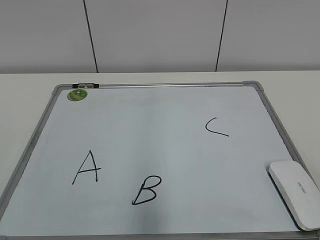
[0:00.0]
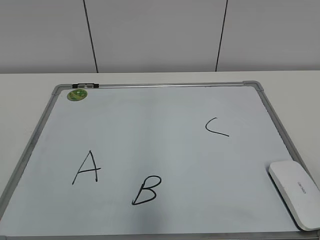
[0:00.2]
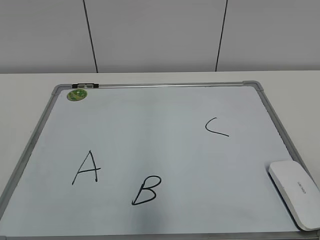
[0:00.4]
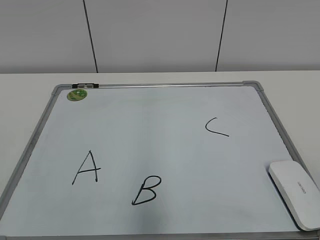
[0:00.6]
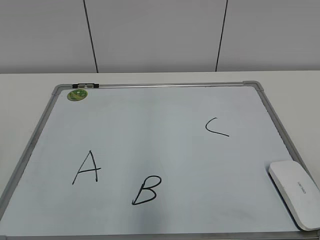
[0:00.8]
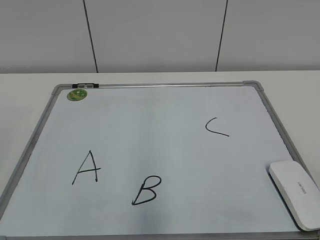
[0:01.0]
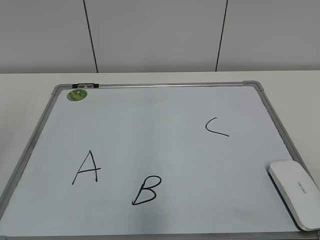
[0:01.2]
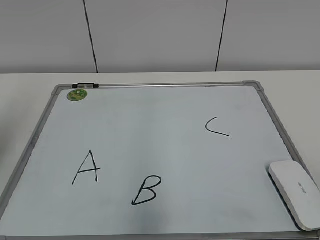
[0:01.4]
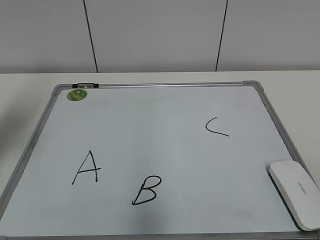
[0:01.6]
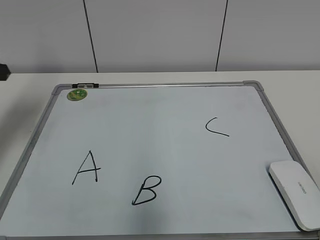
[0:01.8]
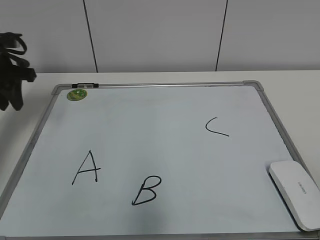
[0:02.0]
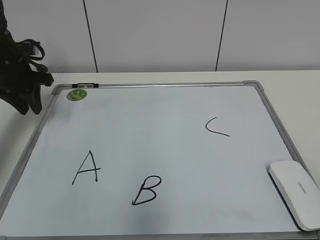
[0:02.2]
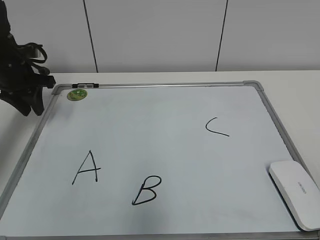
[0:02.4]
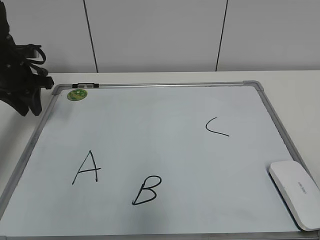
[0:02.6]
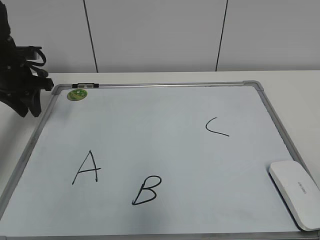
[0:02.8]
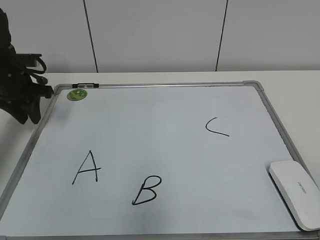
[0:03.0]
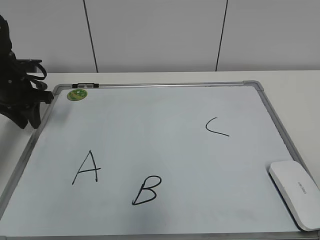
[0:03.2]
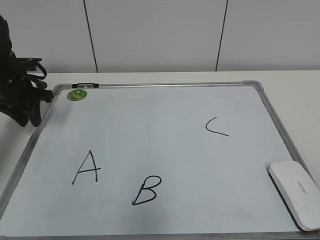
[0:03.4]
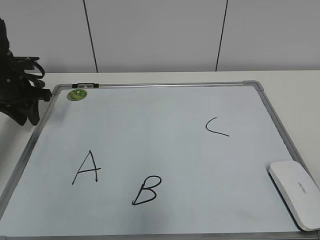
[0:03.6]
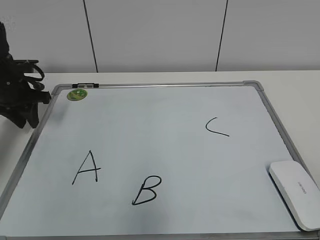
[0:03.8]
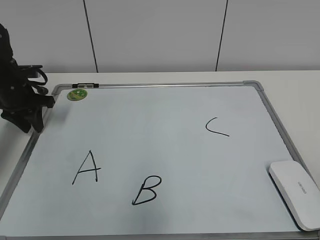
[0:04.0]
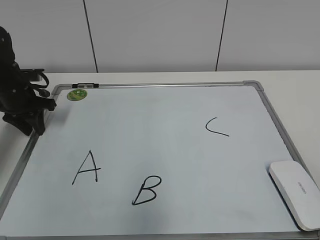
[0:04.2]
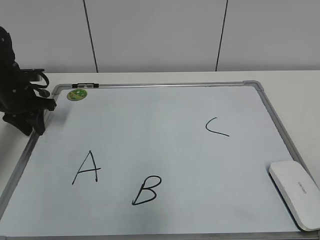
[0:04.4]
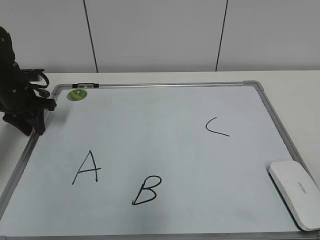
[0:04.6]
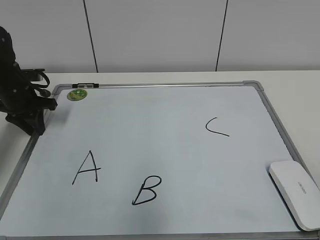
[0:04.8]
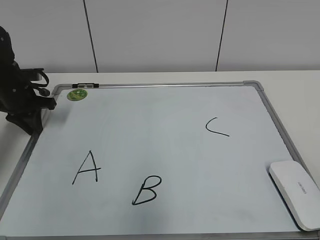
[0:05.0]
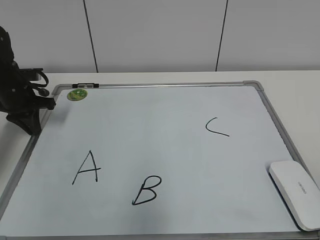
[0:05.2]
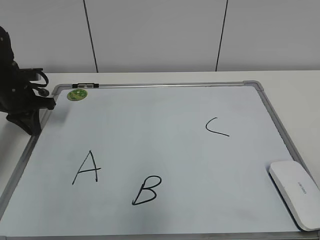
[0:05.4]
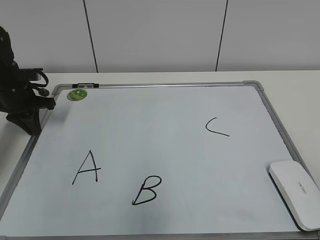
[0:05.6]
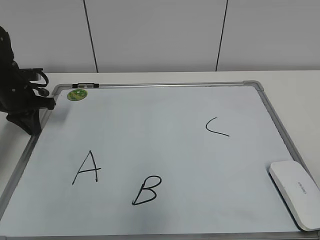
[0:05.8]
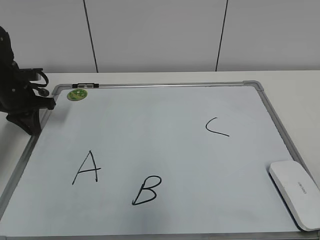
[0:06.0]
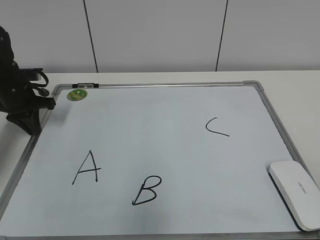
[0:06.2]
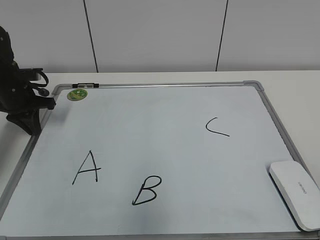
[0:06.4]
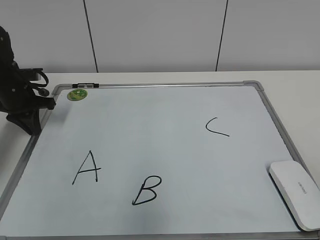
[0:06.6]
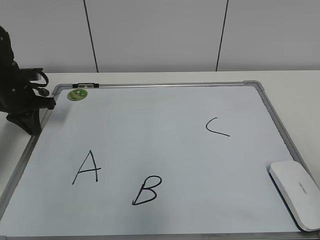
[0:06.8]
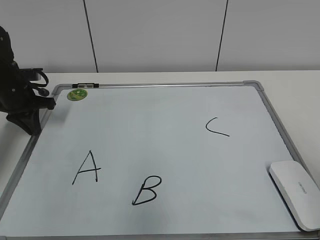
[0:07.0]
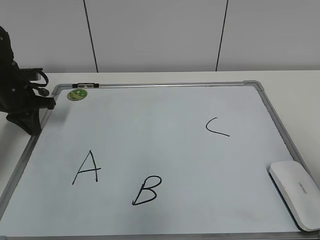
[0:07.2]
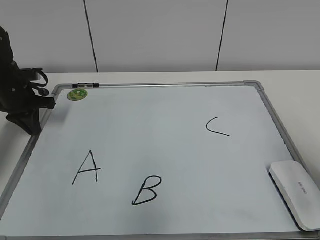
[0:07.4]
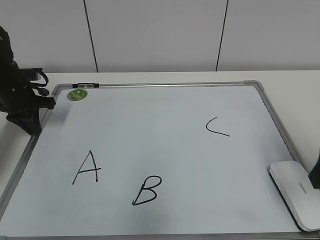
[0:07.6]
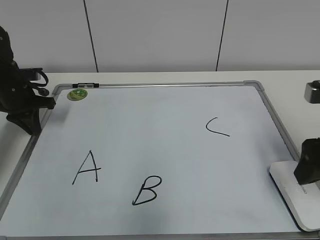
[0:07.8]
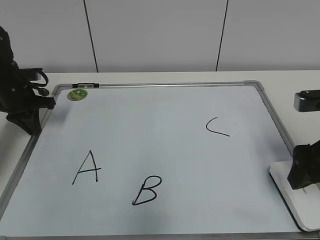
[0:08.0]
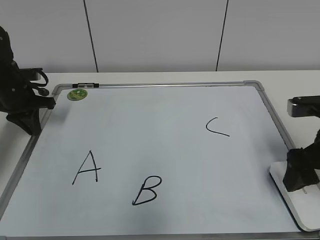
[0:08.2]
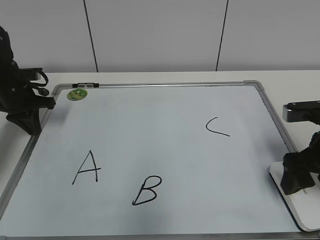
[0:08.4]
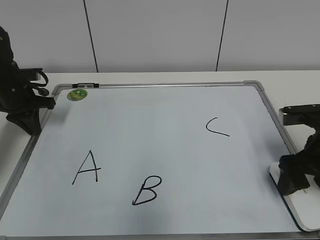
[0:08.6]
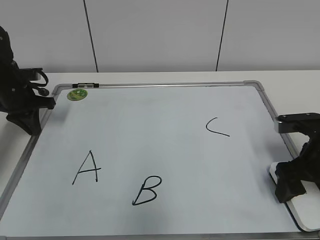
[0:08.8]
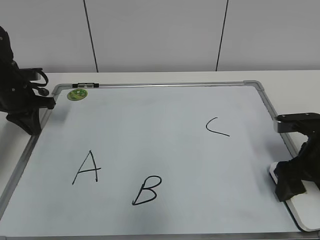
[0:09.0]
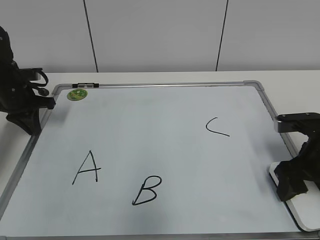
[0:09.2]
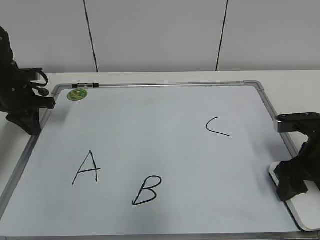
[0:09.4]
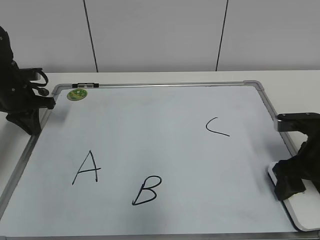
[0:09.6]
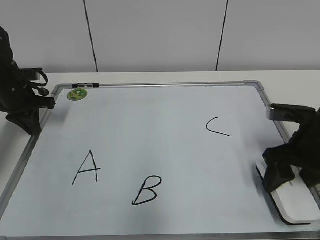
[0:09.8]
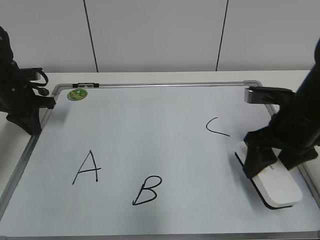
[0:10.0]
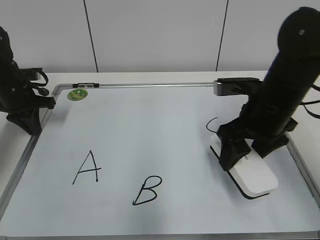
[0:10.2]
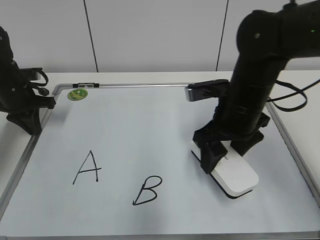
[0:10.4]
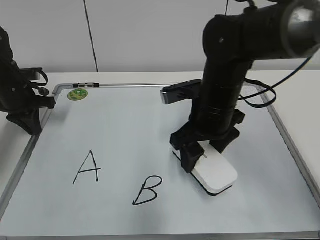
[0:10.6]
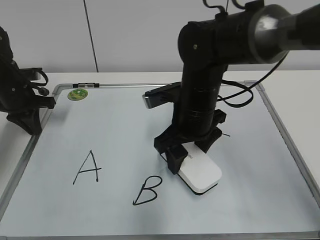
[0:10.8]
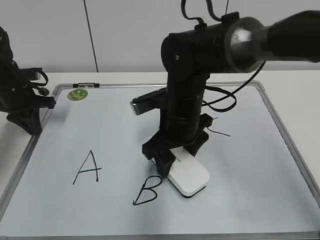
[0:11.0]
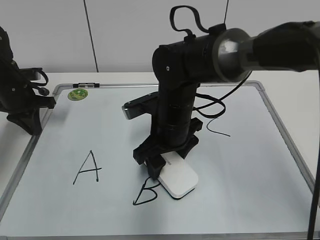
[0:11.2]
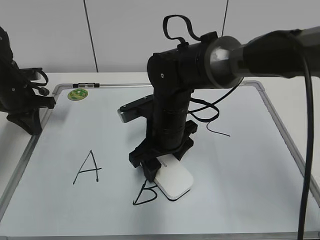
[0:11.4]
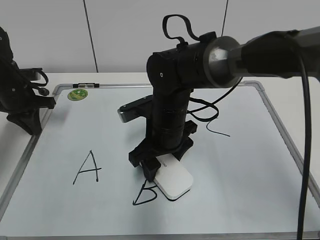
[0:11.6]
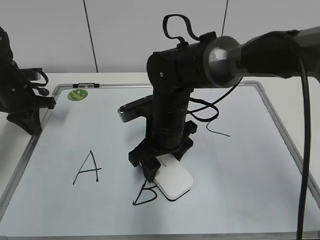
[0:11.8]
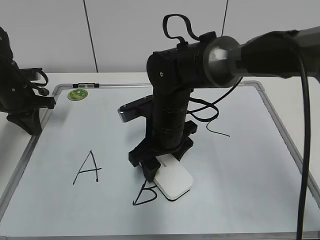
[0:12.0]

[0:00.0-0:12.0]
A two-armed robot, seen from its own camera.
Task of the whole recording: pick up the eraser on the blackboard and erase the letter "B".
Step, 0:00.0 to 0:05.2: Hold the drawing board steady with your left hand.
Step, 0:05.4 to 0:09.4: Grab the eraser with your right hand.
0:01.6 to 0:03.0: The left gripper shifts approximately 25 cm forward and downward.
0:03.0 to 0:04.4: The grippers move only a little.
0:04.4 to 0:06.0: The left gripper closes.
0:06.0 to 0:07.6: The right gripper heads forward, covering approximately 20 cm, and opens its fingers.
0:07.6 to 0:09.0: The right gripper shifts about 15 cm downward and forward.
0:09.0 to 0:10.4: The right gripper travels to the left and upward by roughly 15 cm, and closes up.
0:10.4 to 0:12.0: The right gripper goes about 15 cm to the left and downward.

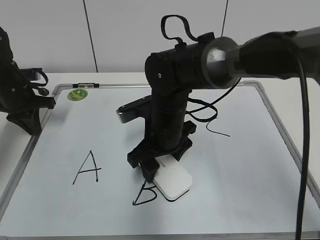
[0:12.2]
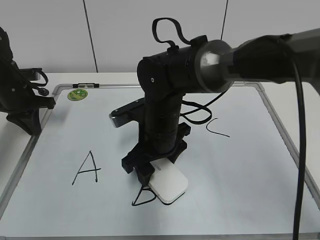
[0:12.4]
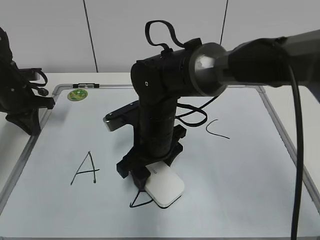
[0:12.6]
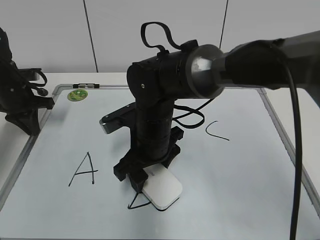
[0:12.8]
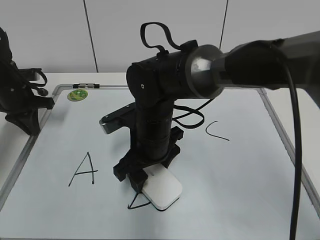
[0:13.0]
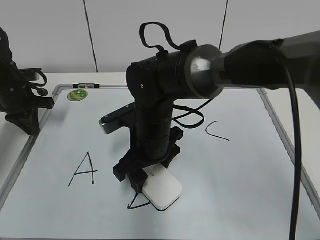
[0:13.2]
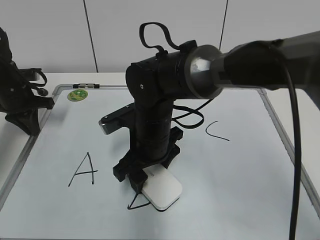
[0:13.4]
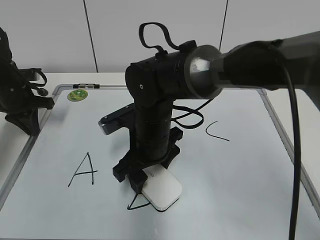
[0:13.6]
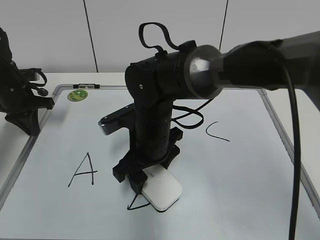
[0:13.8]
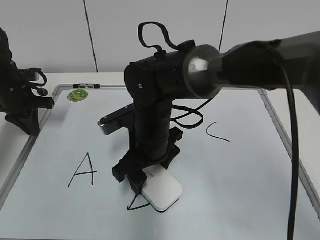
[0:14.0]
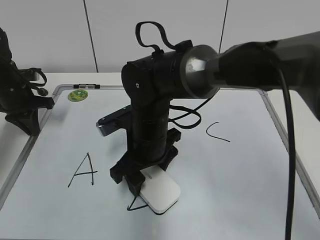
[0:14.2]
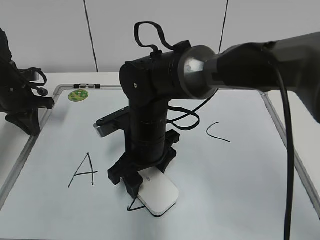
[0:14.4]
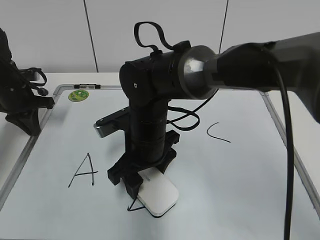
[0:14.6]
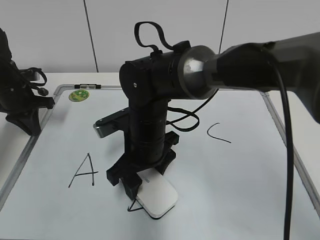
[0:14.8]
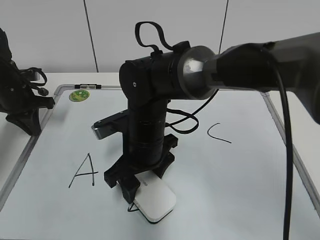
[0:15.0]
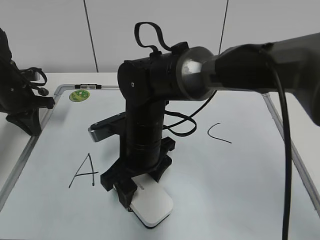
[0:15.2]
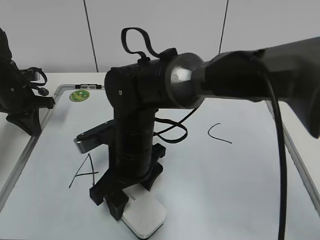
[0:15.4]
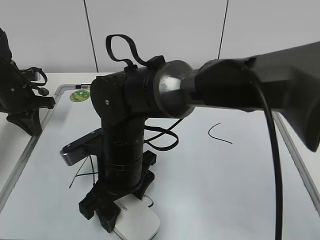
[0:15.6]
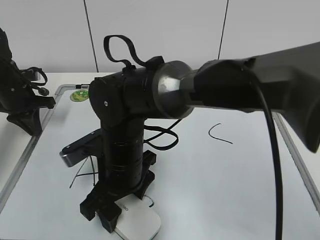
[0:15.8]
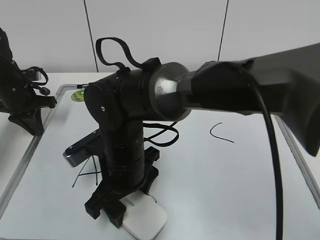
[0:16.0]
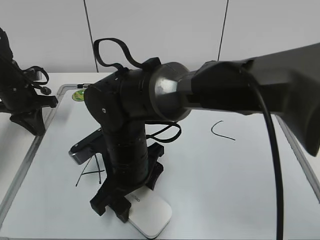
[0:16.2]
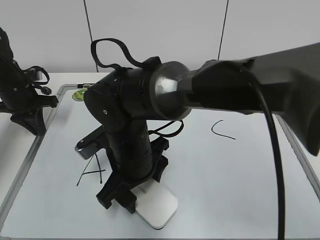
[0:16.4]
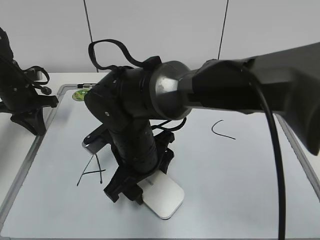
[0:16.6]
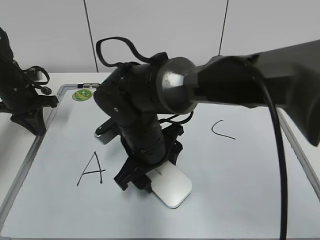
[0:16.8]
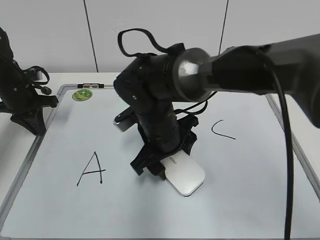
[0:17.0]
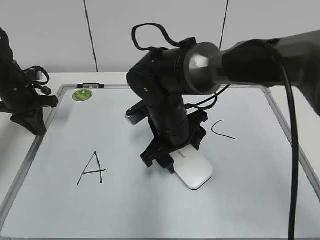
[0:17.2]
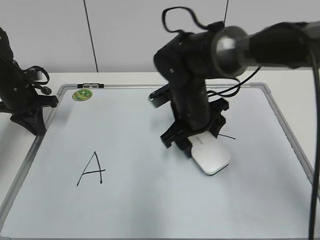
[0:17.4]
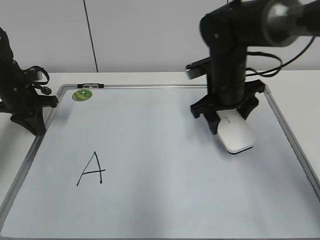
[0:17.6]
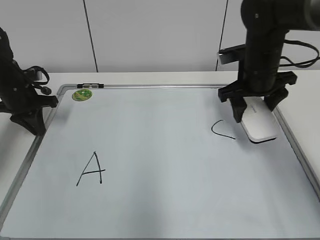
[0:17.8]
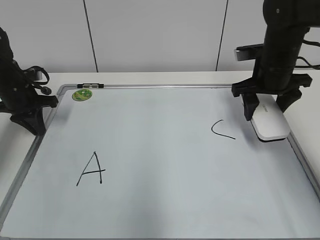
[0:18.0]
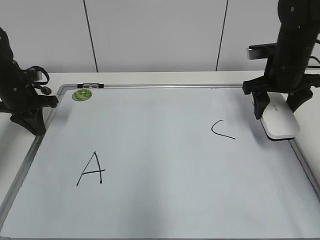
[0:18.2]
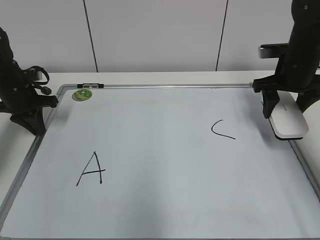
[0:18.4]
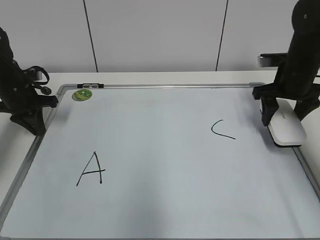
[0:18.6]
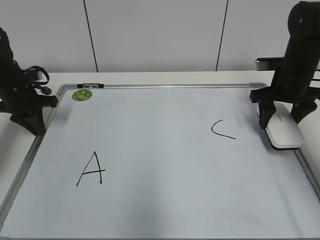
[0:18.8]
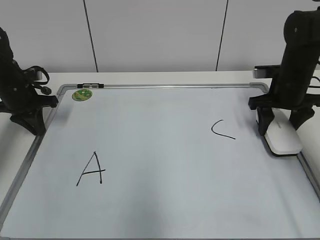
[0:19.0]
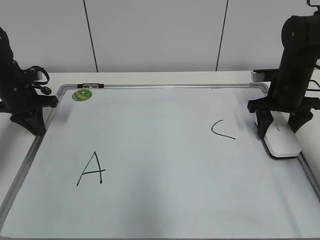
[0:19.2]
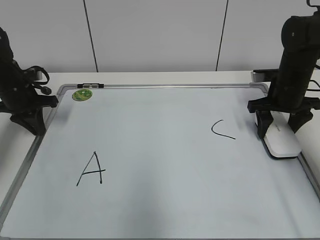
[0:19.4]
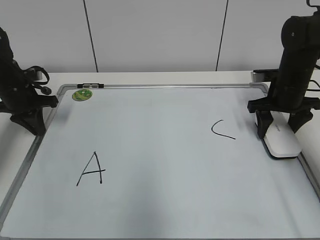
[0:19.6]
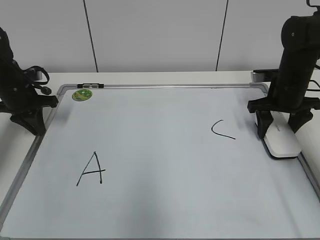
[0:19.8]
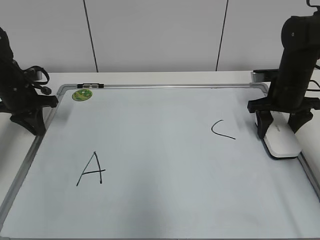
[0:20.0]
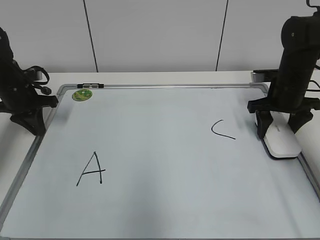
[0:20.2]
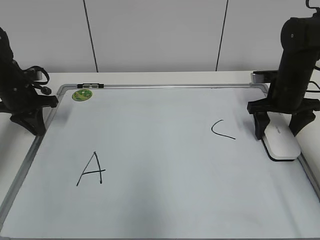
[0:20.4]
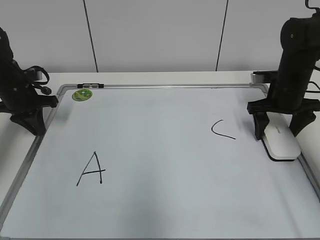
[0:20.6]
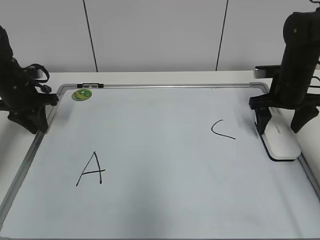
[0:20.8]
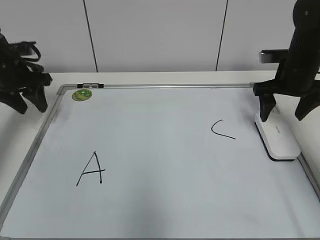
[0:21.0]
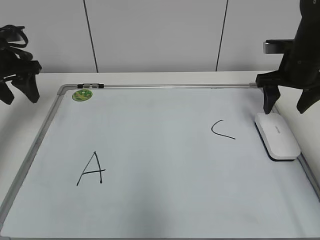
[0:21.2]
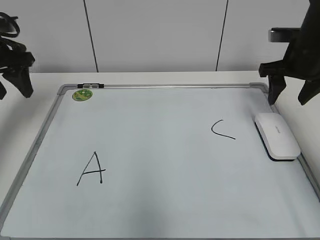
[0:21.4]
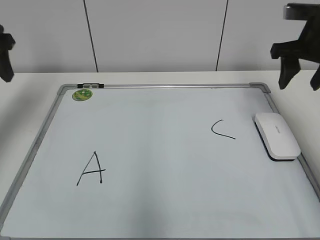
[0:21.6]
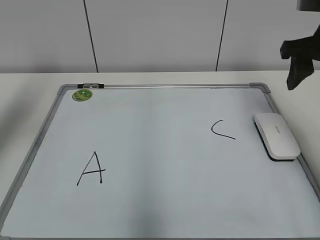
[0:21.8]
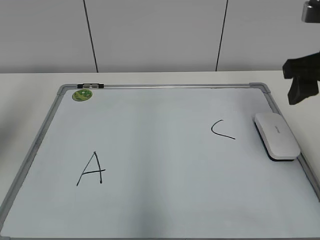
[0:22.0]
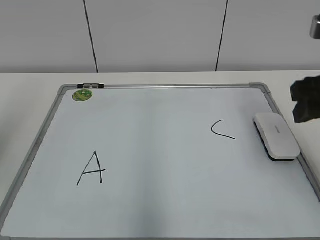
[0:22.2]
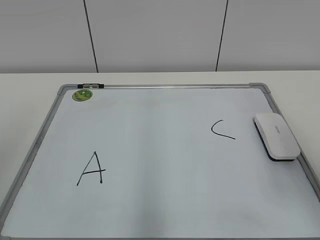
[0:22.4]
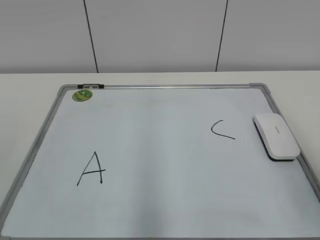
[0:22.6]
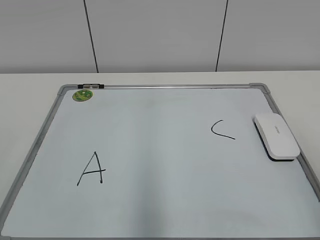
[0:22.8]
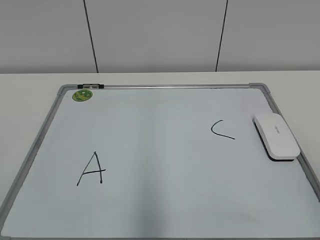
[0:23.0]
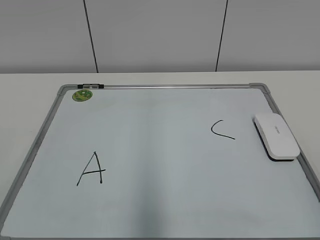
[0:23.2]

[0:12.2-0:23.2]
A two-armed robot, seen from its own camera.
Task of the whole recording: pick up the eraser on the blackboard and erase the letter "B".
Step, 0:12.2 to 0:16.8: Erase the letter B with your right hand.
Step, 0:17.0 to 0:20.2: Put down the eraser with your right hand.
0:17.0 to 0:18.4: The right gripper is displaced to the right by some 25 cm.
0:18.4 to 0:20.0: The right gripper moves downward, approximately 5 cm.
0:20.0 to 0:21.6: Both grippers travel together upward, about 15 cm. The left gripper opens up. Meanwhile the right gripper opens, then closes once more.
0:21.6 to 0:23.2: Both grippers move backward, about 40 cm.
